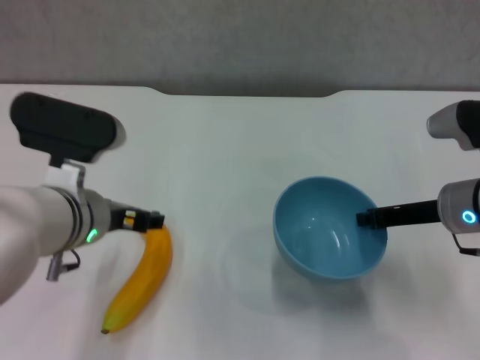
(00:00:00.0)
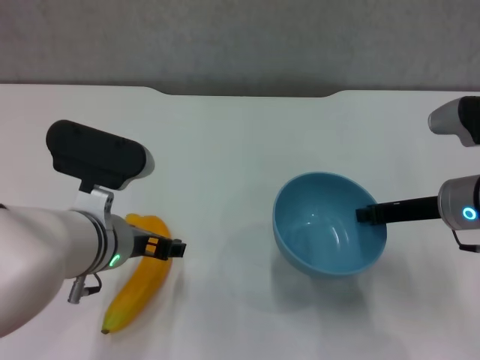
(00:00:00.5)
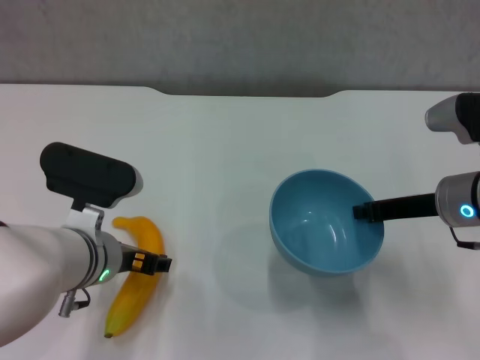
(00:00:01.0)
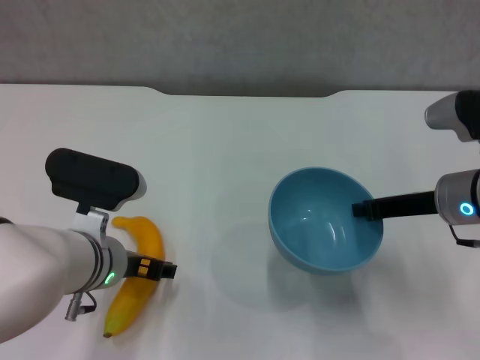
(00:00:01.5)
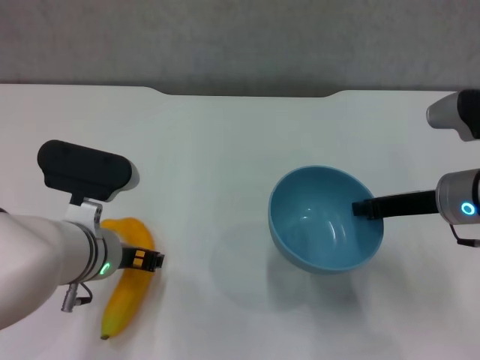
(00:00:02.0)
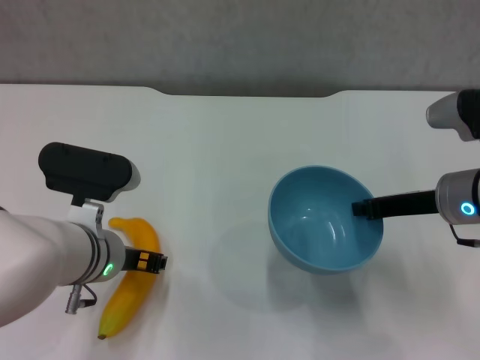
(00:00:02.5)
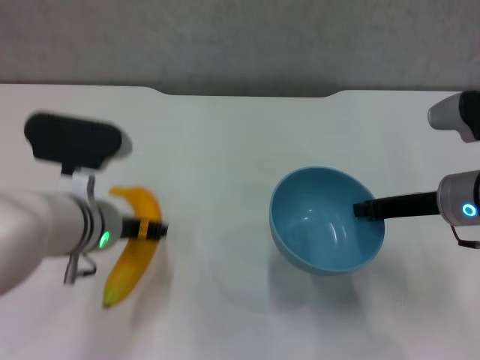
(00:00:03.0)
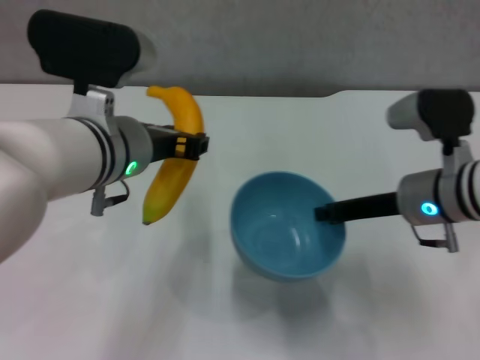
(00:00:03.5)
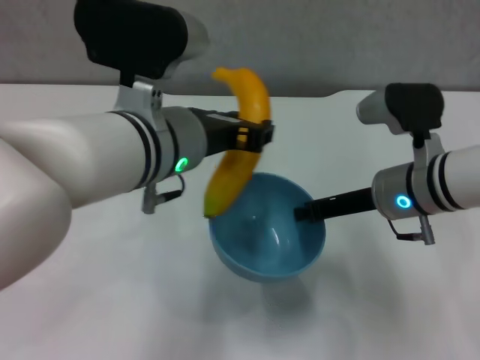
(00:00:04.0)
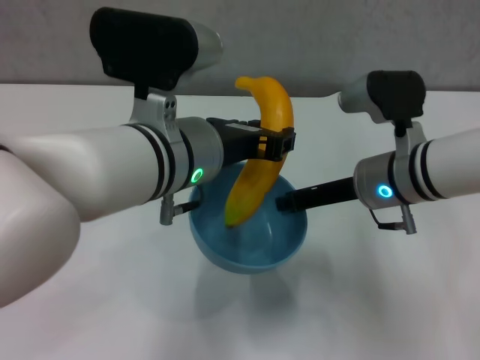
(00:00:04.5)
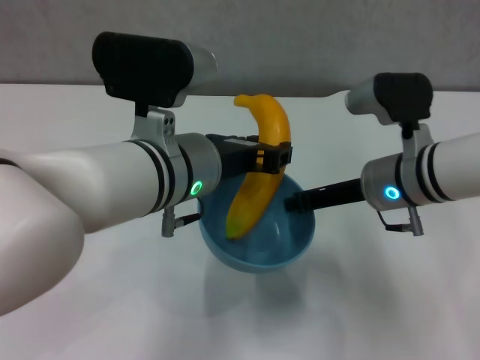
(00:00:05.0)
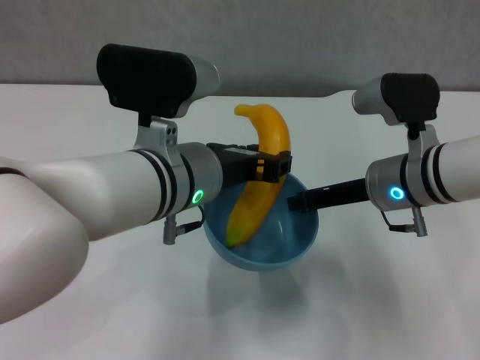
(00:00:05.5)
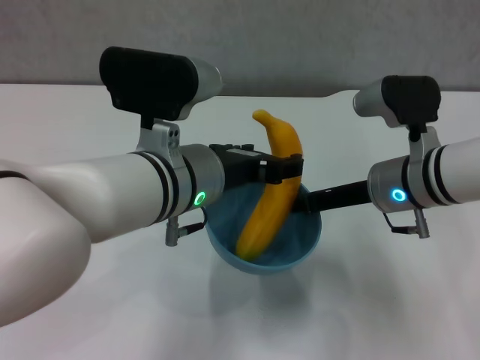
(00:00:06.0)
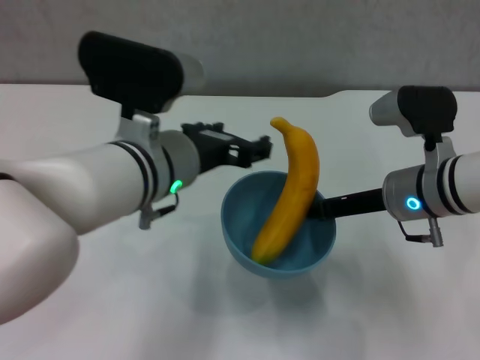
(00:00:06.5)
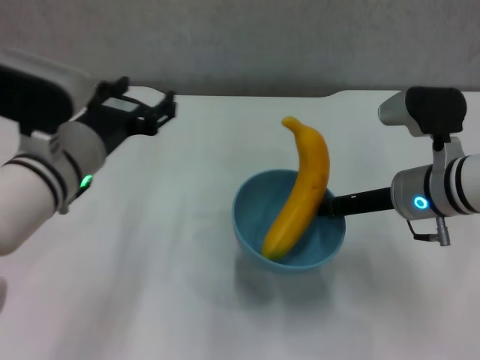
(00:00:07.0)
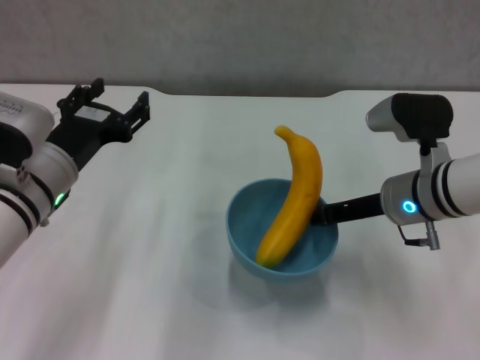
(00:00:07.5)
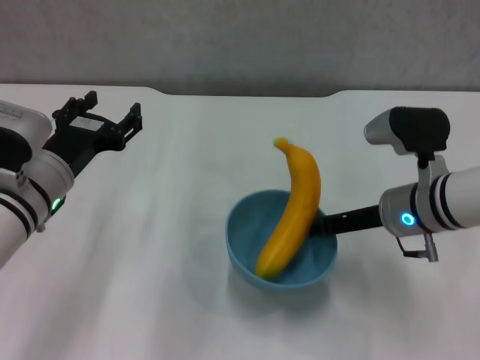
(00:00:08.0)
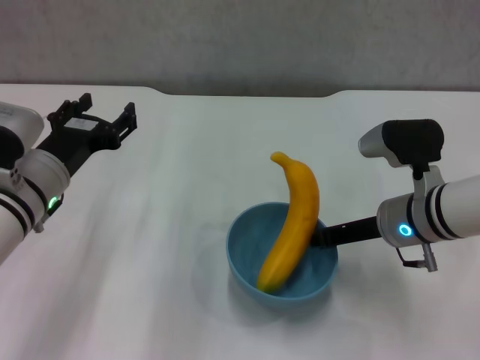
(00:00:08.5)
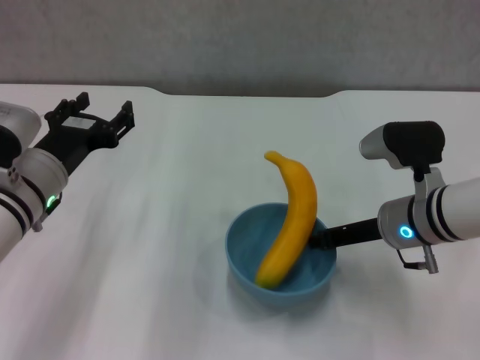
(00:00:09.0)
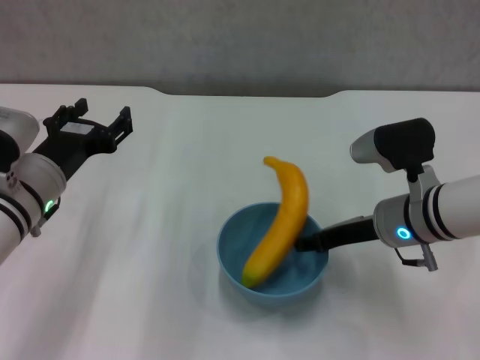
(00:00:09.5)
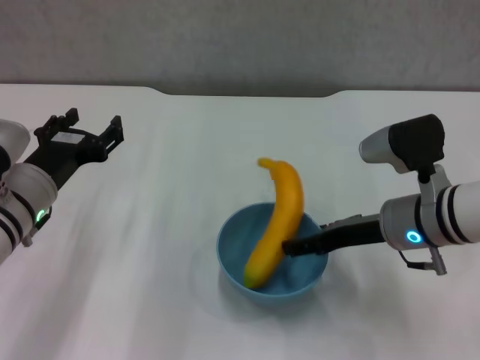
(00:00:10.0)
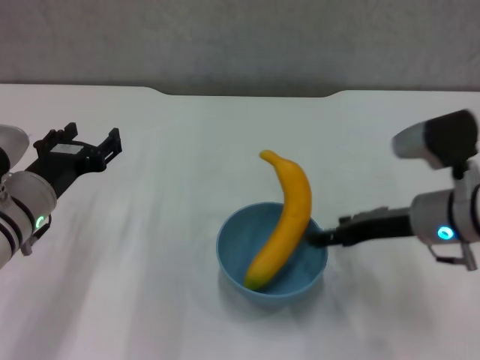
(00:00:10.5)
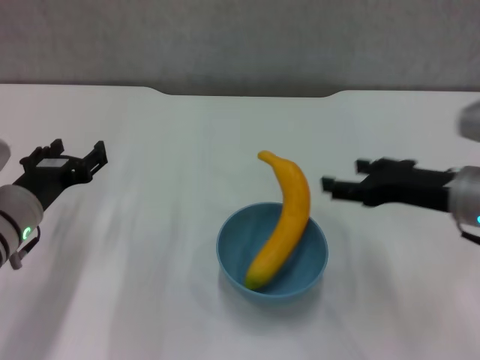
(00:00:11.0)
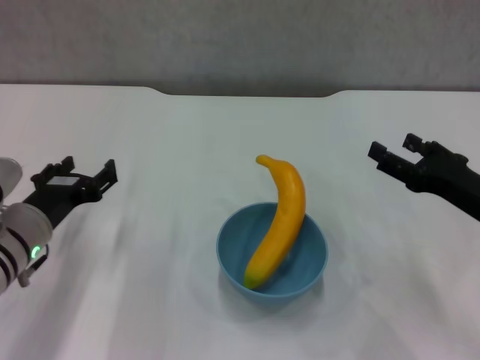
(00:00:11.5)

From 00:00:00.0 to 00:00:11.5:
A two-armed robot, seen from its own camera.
Step, from 00:00:00.5 to 00:00:02.0: Grasp the banana with left gripper.
Step, from 00:00:02.5 to 00:00:06.0: Place the banana in the blue bowl with left gripper.
Step, from 00:00:06.5 to 00:00:10.0: Place the bowl on the table with right gripper.
From 00:00:00.0 to 00:00:02.0: The left gripper goes some 5 cm downward.
From 00:00:02.0 to 00:00:04.0: The left gripper goes roughly 15 cm upward and to the right, and closes, while the right gripper is displaced to the left by some 5 cm.
From 00:00:04.0 to 00:00:06.0: The left gripper opens up.
From 00:00:06.0 to 00:00:07.5: The left gripper heads to the left and downward, covering approximately 15 cm.
From 00:00:07.5 to 00:00:09.5: There are only small adjustments of the grippers.
From 00:00:09.5 to 00:00:11.5: The right gripper goes approximately 10 cm to the right and backward, and opens up.
